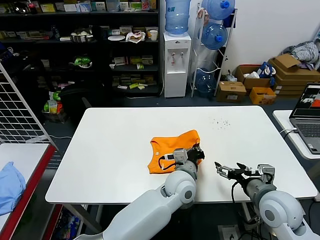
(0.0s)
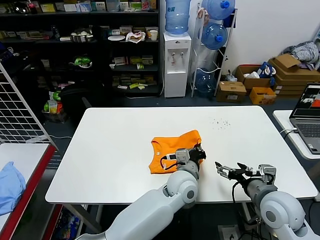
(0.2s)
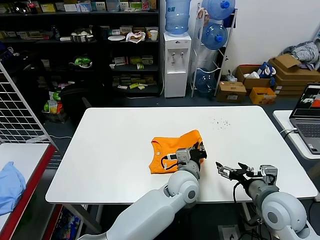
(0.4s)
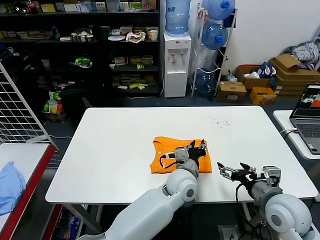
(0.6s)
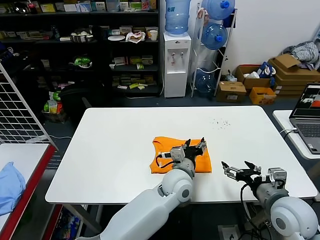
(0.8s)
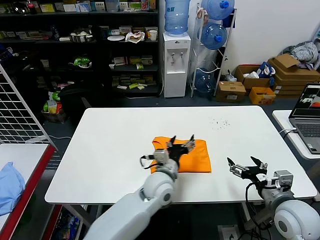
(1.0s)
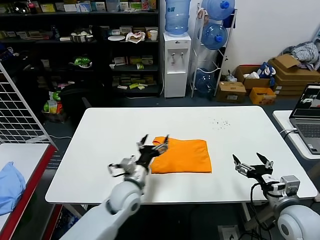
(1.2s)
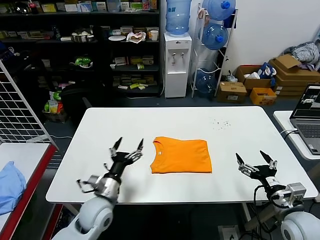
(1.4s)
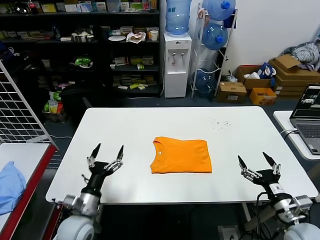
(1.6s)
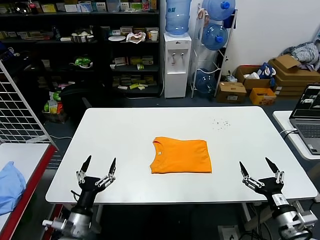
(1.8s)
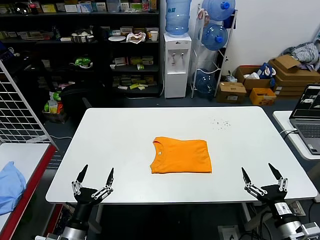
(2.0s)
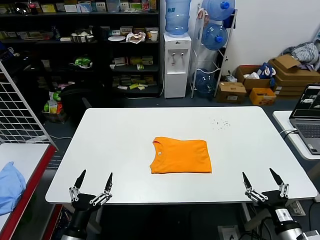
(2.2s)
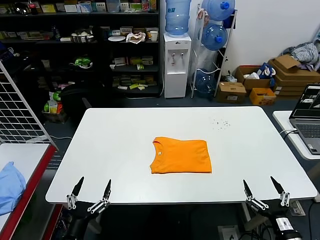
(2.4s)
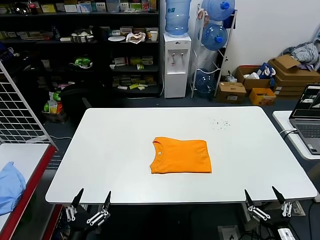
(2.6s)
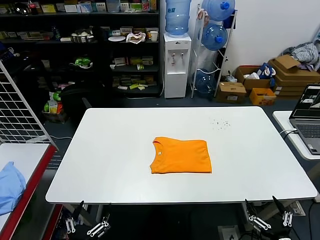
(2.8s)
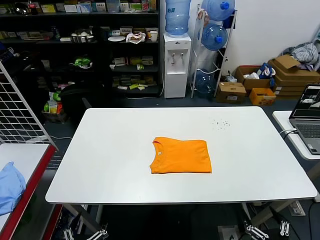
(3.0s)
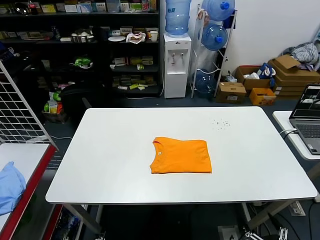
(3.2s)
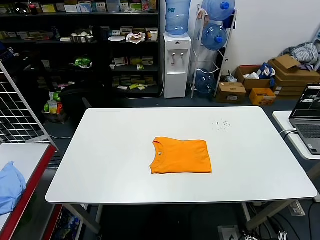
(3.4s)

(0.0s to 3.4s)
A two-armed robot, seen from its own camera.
Task of the whole recording: fold and organize the clothes.
0.0s - 1.6s: The right gripper heads to the right and backward, covering some 10 cm; the left gripper is displaced to the left by about 30 cm, and opens.
1.6s - 3.4s: The left gripper heads backward, covering about 25 cm, while the right gripper is displaced backward and downward by approximately 20 cm.

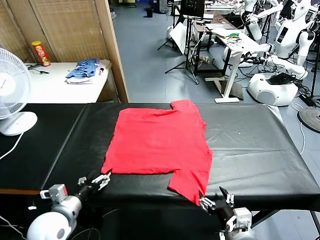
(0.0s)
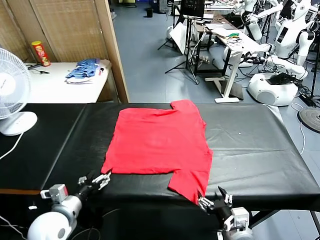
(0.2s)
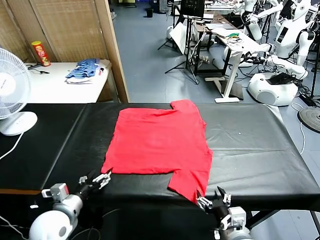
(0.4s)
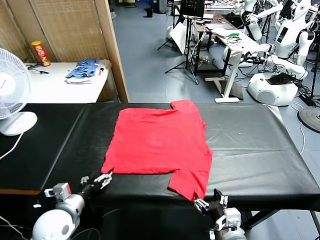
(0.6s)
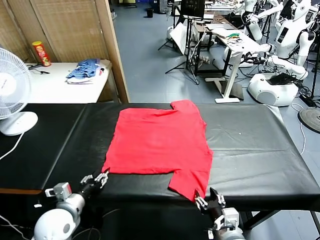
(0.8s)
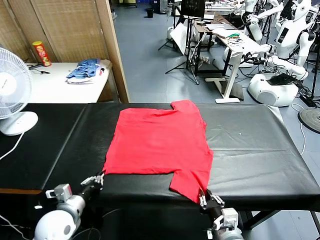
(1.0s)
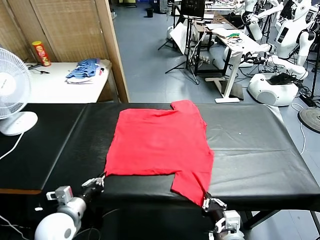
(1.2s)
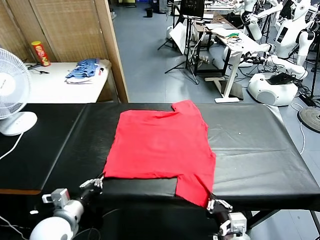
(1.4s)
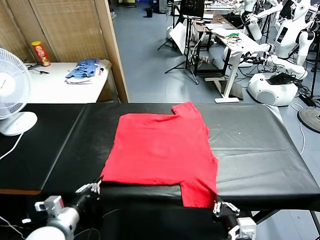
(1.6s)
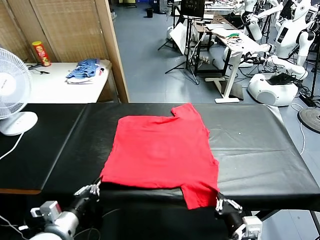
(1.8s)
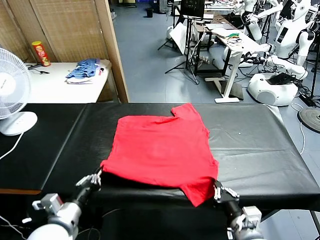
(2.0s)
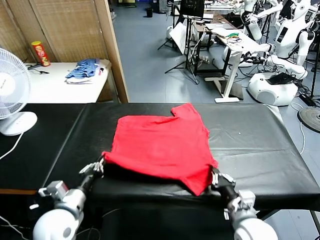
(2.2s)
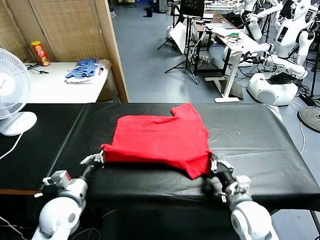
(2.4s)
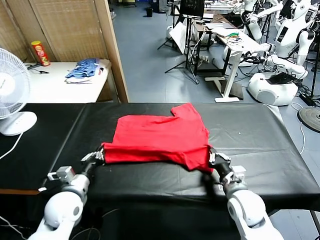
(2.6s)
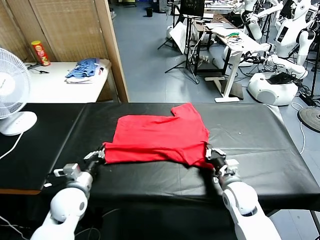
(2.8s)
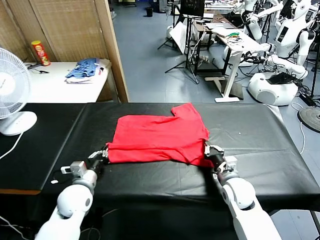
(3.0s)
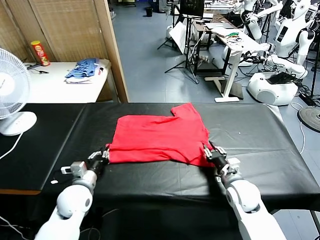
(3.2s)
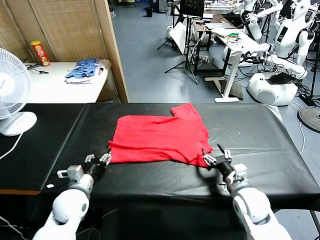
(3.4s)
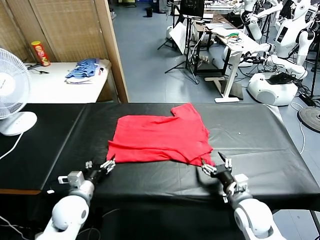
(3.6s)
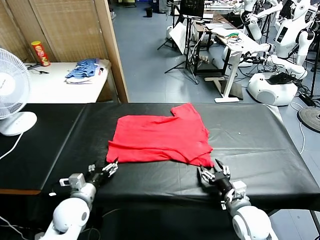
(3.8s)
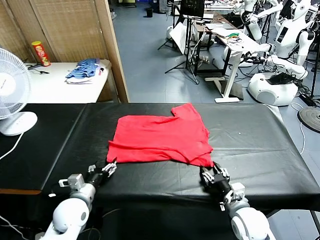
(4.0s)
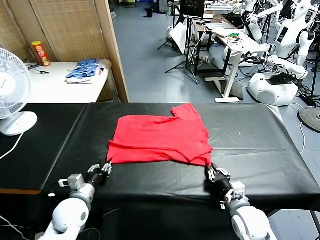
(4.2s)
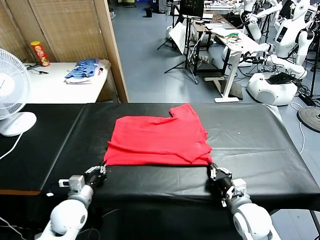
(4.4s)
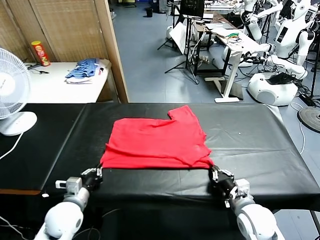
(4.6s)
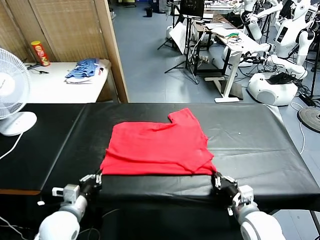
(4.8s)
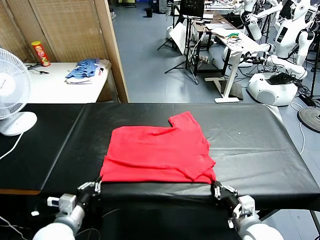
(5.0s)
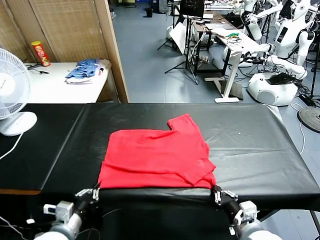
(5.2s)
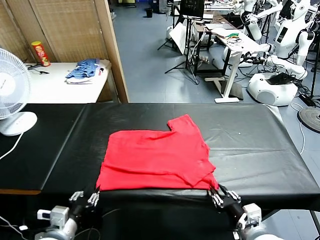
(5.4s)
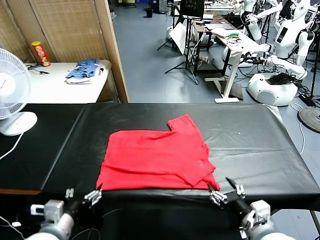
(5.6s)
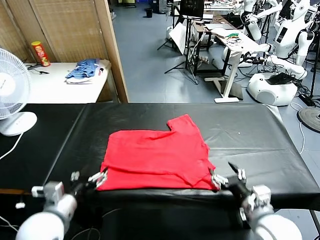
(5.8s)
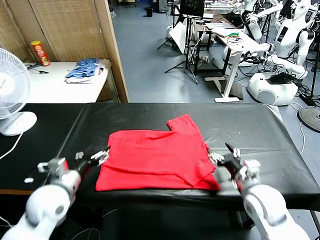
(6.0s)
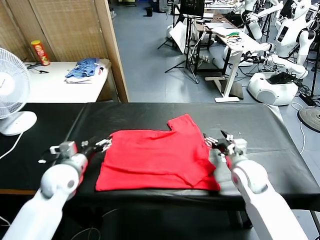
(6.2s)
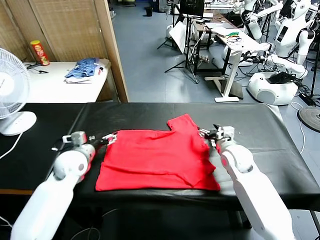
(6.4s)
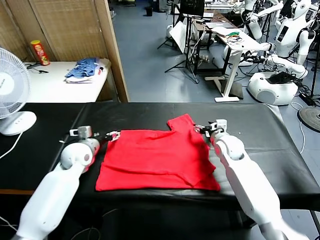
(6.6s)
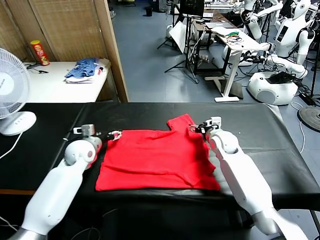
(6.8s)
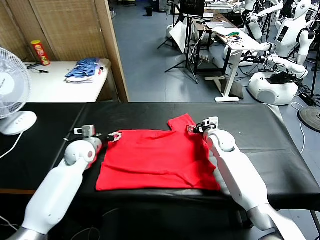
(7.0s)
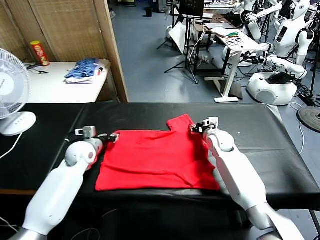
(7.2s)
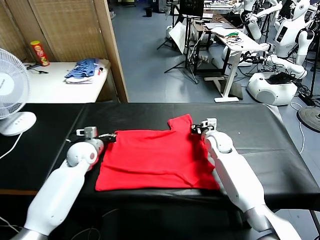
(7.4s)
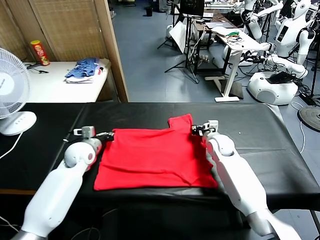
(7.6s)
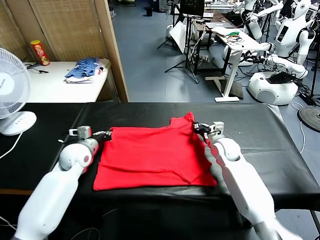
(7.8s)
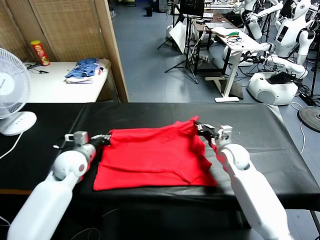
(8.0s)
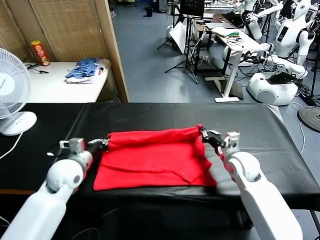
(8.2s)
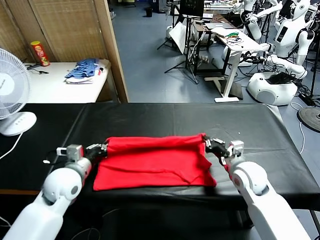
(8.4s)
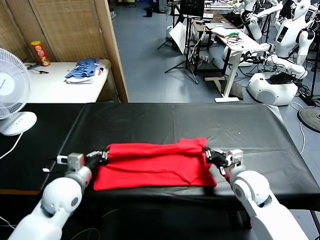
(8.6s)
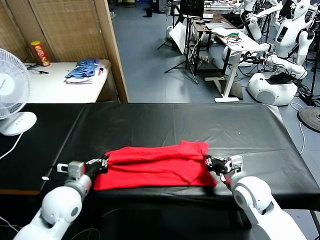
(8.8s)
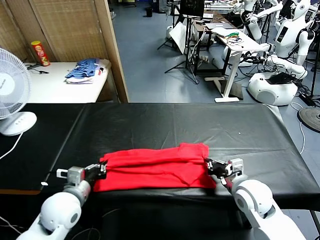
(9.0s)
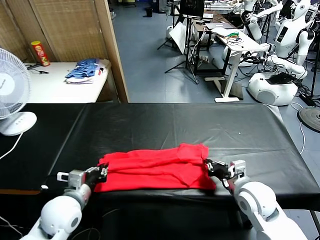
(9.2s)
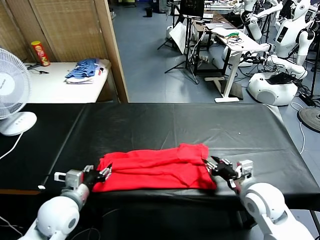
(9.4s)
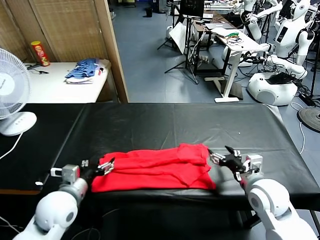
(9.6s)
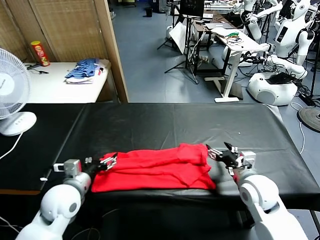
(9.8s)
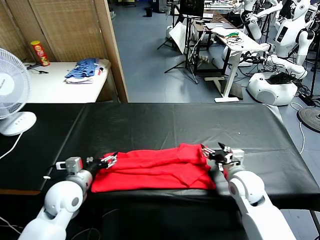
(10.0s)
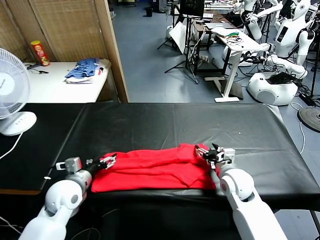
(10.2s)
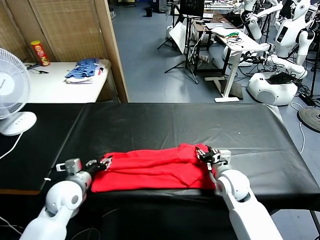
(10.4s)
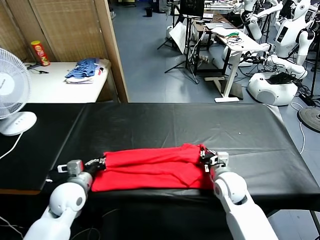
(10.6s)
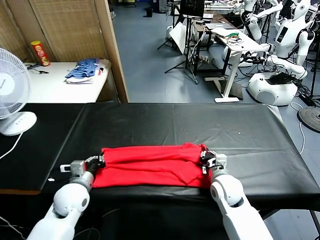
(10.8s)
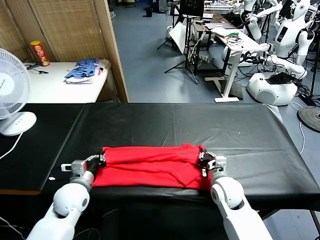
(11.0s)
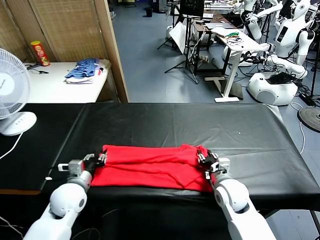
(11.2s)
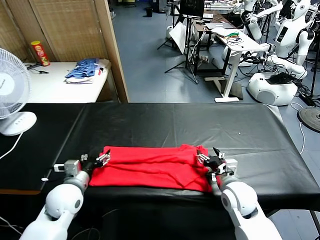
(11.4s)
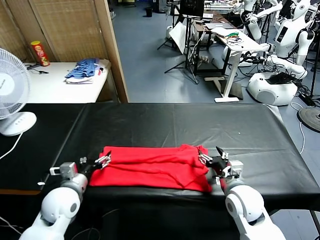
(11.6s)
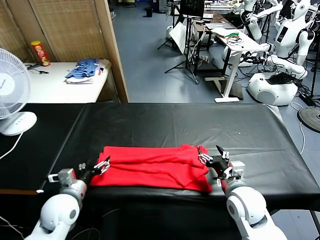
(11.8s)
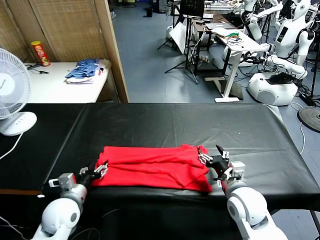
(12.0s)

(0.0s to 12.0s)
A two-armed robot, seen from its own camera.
Task of the whole recording: fold and organize the clothes.
Step, 0.0s - 1.2s: use both grippers simultaneously to clamp the lower edge of the clothing fabric.
Step, 1.4s - 3.2s: use both grippers to drag the lower edge of the fabric forward and fold it over the upper edge.
Step, 3.6s - 5.6s: Drag the clothes downward with both gripper.
Step, 5.8s - 7.2s: use both grippers simultaneously to clamp the upper edge of the clothing fabric.
Step, 7.6s - 9.4s: use both grippers to drag the upper edge of the fabric backward and fold it over the lower edge.
1.6s - 3.0s: Both grippers travel together forward, approximately 15 cm. The right gripper opens up.
3.0s - 4.4s: The left gripper shifts by about 5 cm, and opens, then closes again. The right gripper goes roughly 5 cm backward, and closes up.
4.4s - 6.0s: The left gripper shifts approximately 10 cm upward, reaches about 10 cm backward, then returns, and opens up. Meanwhile the right gripper heads forward and upward, covering about 15 cm, and opens up.
6.0s - 7.6s: The two grippers go about 15 cm forward. The left gripper closes its fingers, while the right gripper closes up.
7.6s - 9.0s: Both grippers travel together backward, some 20 cm.
9.0s - 10.4s: The left gripper ends up roughly 5 cm from where it was, and opens. The right gripper heads forward, covering approximately 5 cm, and opens, then closes once more.
10.4s - 12.0s: The right gripper is displaced backward by approximately 10 cm, and opens up, while the left gripper ends up approximately 5 cm from where it was, and opens up.

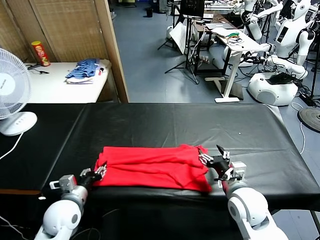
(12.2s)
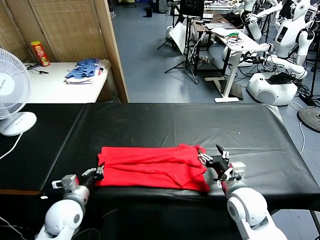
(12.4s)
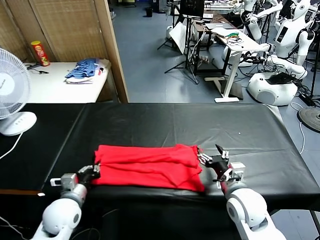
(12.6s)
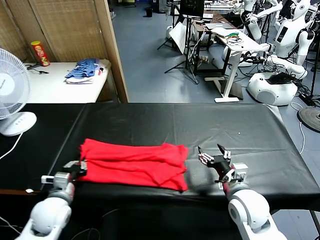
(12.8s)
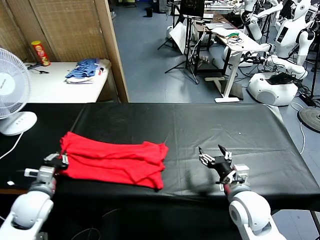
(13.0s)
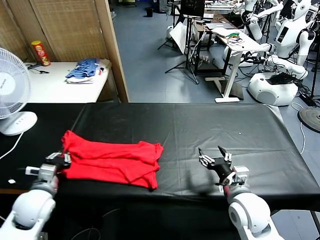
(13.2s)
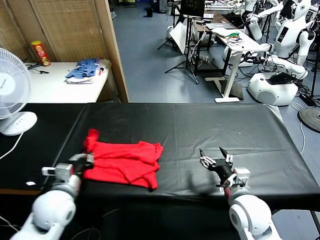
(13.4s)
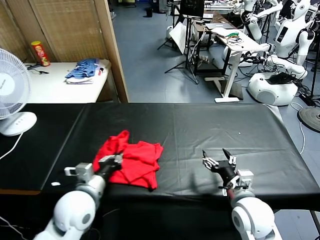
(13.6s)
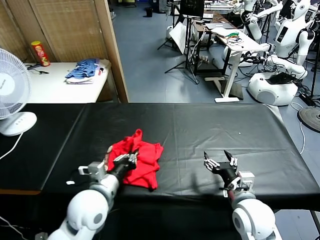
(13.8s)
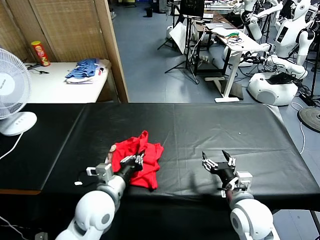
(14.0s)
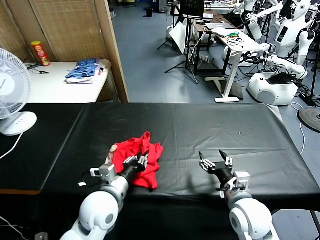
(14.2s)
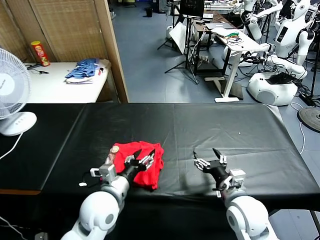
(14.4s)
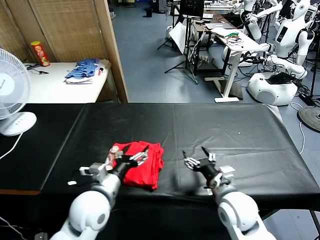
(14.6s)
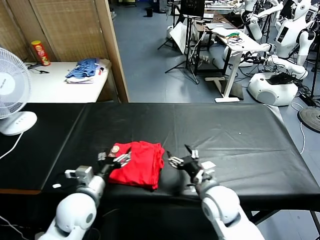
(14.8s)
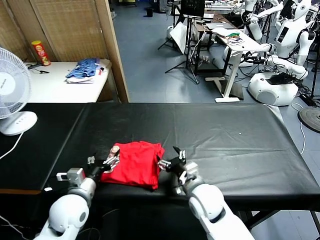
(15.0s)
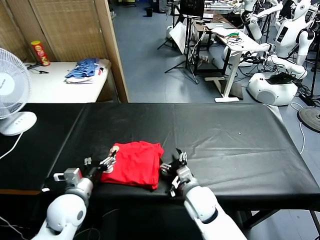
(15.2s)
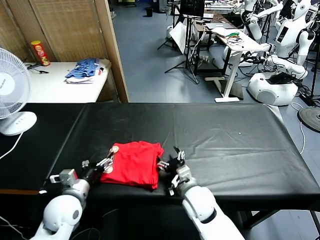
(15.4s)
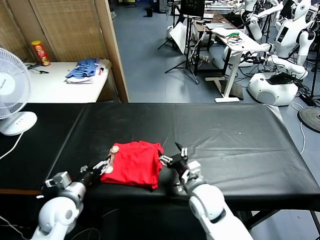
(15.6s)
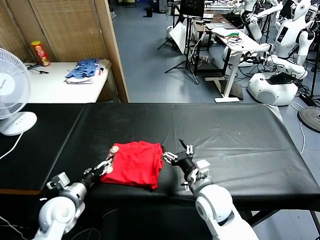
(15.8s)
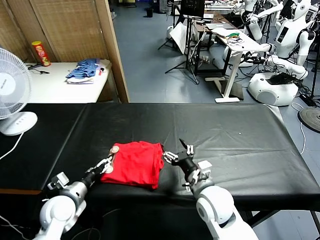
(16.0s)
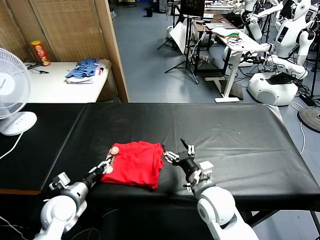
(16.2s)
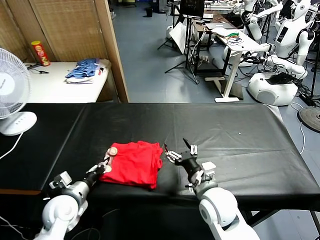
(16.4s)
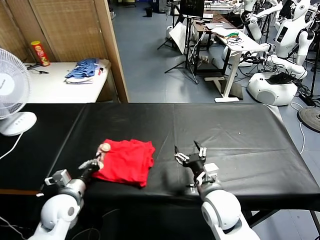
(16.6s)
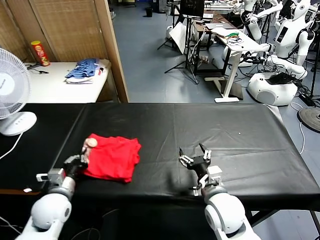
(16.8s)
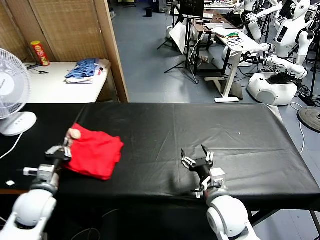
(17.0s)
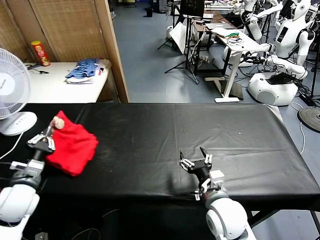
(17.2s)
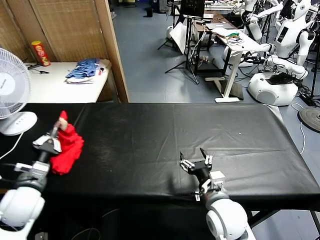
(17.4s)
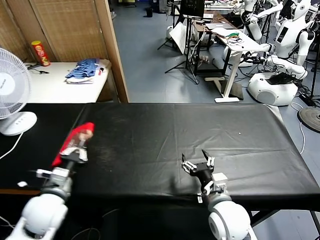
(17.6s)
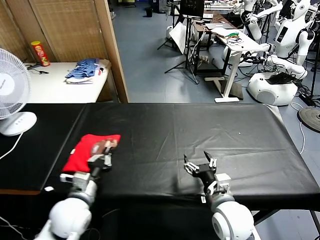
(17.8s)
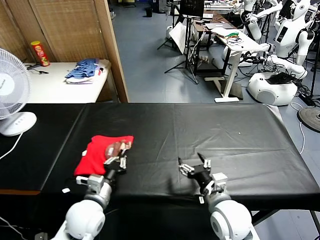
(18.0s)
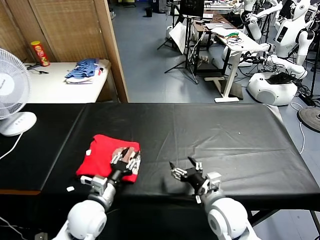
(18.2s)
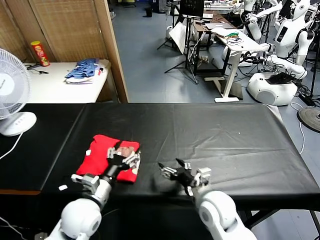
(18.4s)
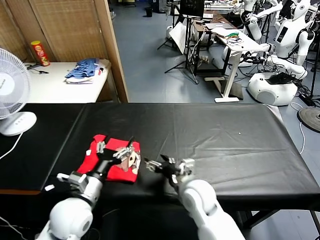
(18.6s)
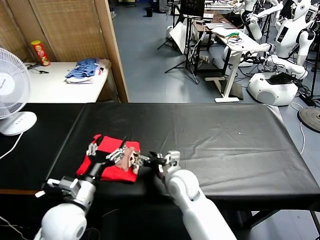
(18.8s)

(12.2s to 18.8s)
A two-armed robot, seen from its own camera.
Task of the whole recording: fold and organize the clothes.
Step, 12.6s - 14.4s: use the left gripper to drag the left edge of the fabric to the left and folds it over the right edge.
Step, 14.6s - 18.2s: Flip the folded clothes over with left gripper.
12.2s - 13.8s: The left gripper shifts about 15 cm to the right and upward, and closes up.
13.8s - 15.4s: The left gripper travels to the left and downward by roughly 10 cm, and opens up, while the right gripper is displaced to the left, forward and downward by some 15 cm.
15.4s - 17.2s: The right gripper travels backward, upward and to the right by roughly 10 cm. Meanwhile the left gripper shifts some 10 cm to the left and upward, and closes up.
17.2s - 18.8s: The left gripper moves to the right, approximately 15 cm, and opens; the right gripper is displaced forward and to the left by about 15 cm.
